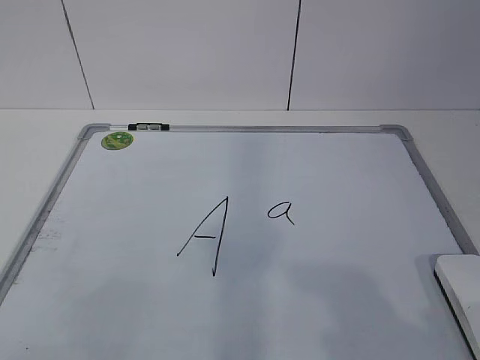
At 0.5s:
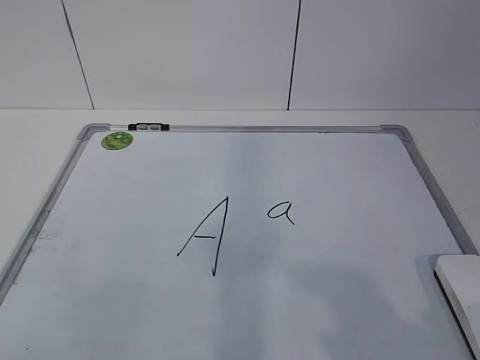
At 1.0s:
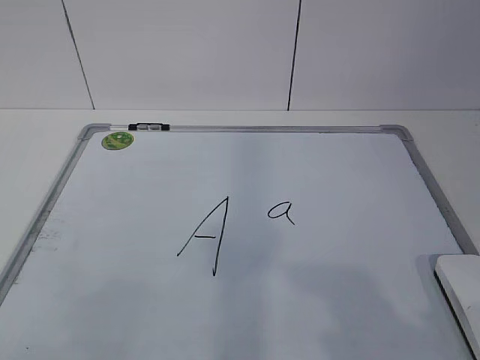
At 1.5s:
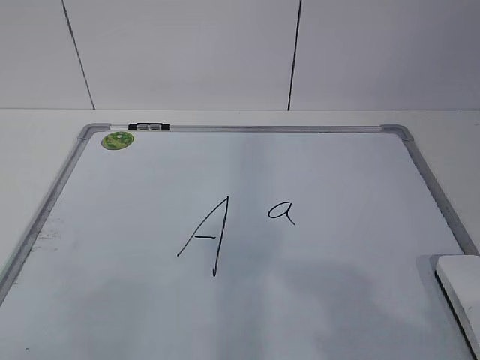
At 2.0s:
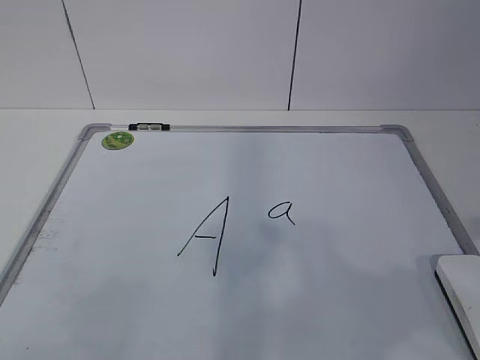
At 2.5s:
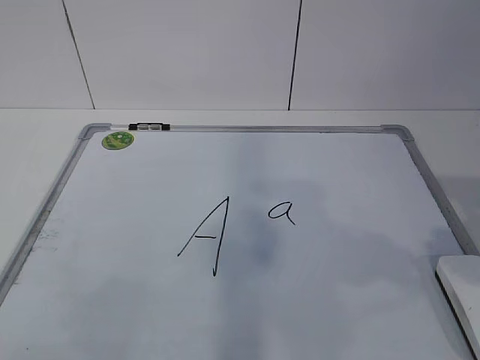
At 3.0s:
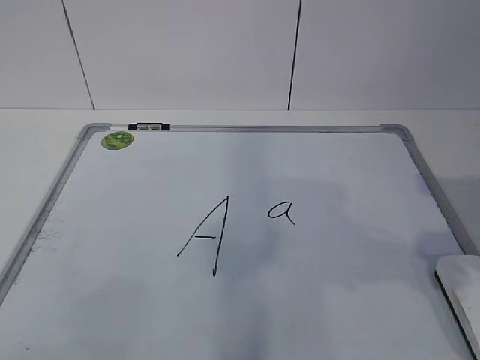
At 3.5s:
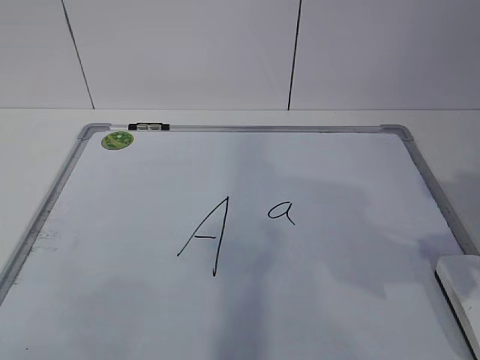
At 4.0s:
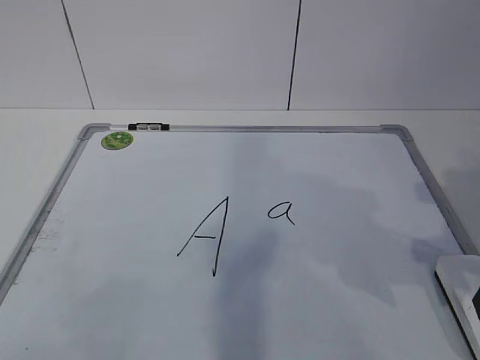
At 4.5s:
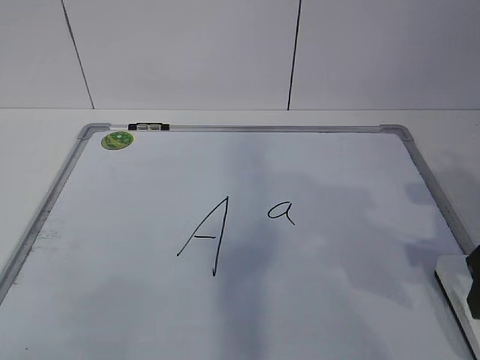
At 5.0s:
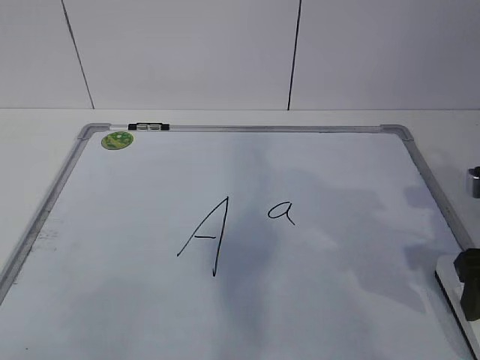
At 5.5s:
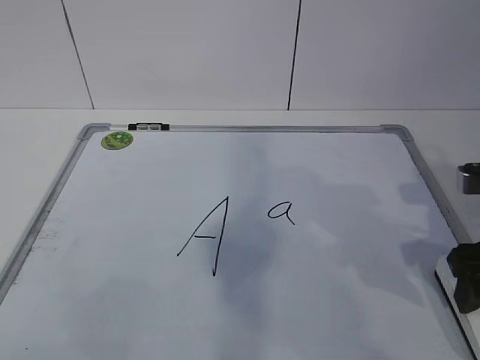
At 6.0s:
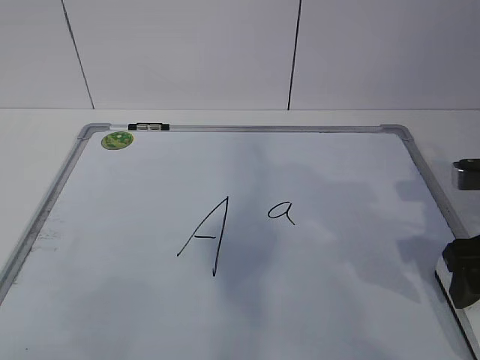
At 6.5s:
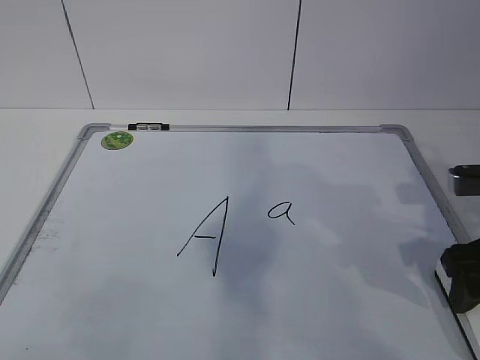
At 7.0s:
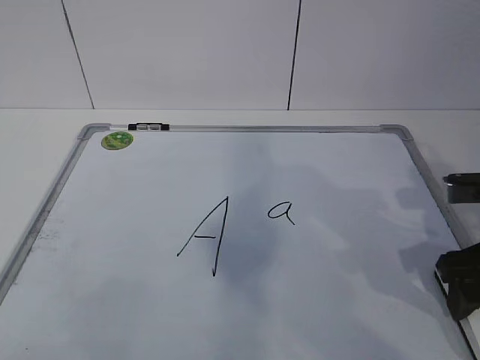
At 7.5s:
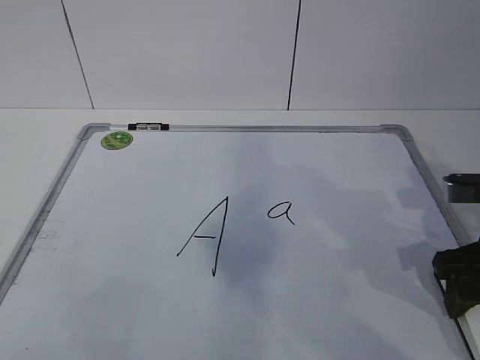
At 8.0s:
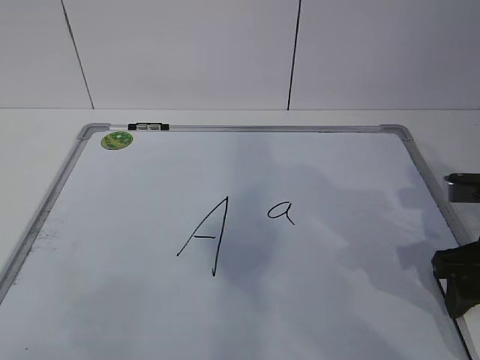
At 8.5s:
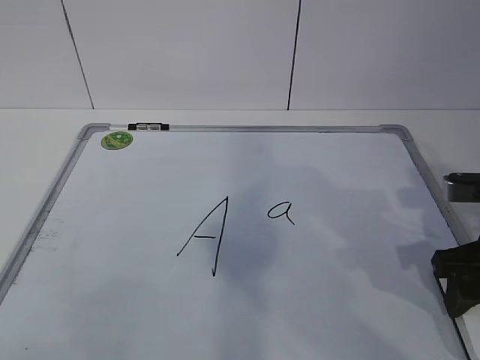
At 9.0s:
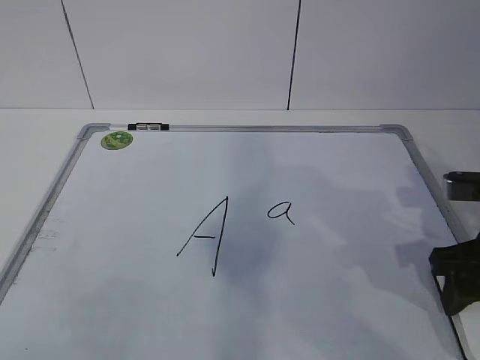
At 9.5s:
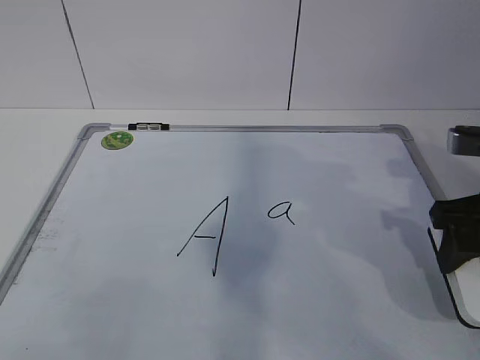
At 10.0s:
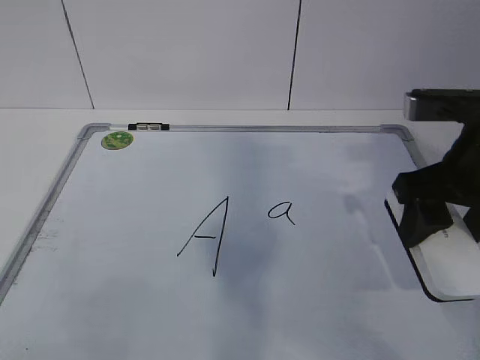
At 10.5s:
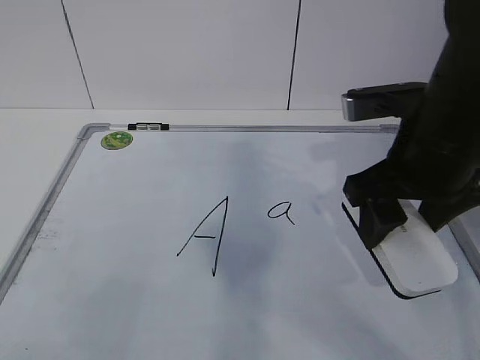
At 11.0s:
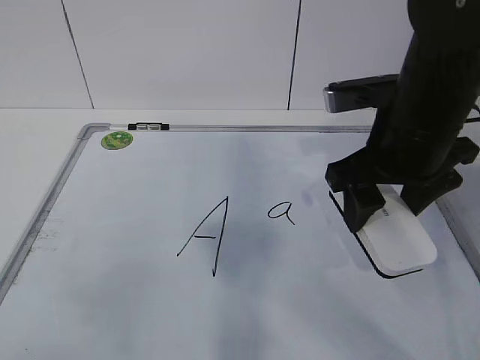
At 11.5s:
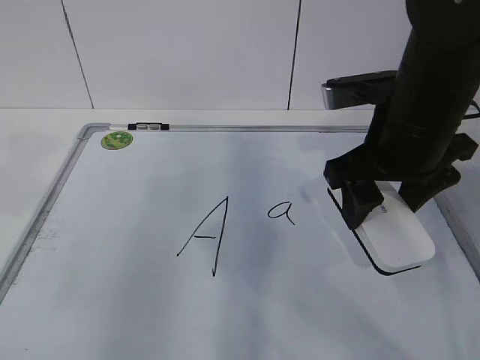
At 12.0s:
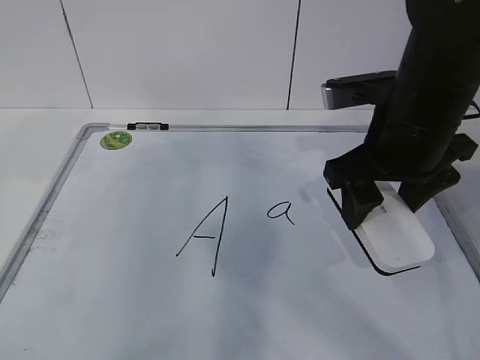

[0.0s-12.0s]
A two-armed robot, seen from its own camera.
Task of the whole recording: pick up the eraser on the blackboard and erase the letter "a".
2.0s to 4.0s: The right gripper goes about 15 cm forward and downward.
4.0s to 6.0s: The right gripper shifts by roughly 5 cm.
6.0s to 8.0s: The grippers stay close to where they were, moving slightly.
8.0s to 10.0s: The right gripper goes roughly 10 cm upward.
10.0s to 12.0s: The left gripper heads forward, covering approximately 30 cm. The right gripper moves to the left, some 5 cm.

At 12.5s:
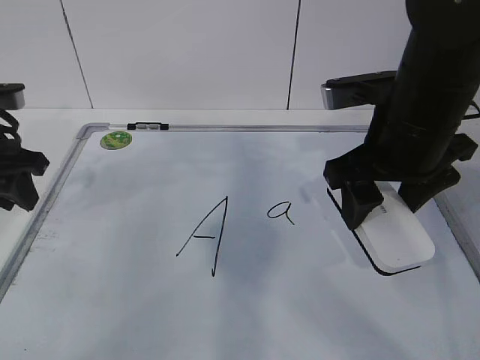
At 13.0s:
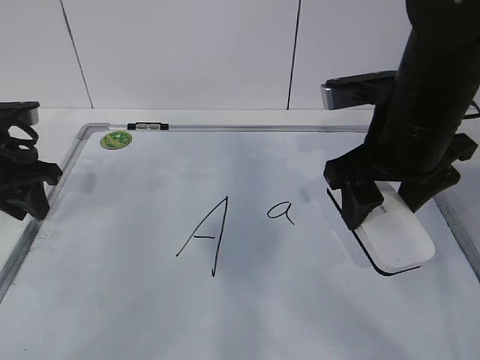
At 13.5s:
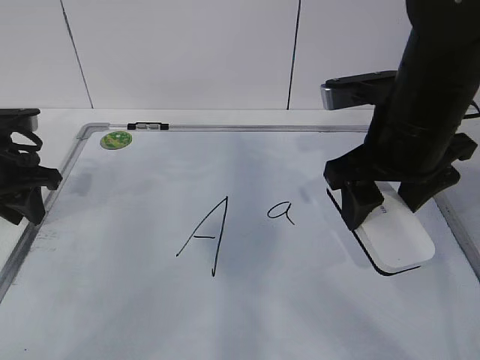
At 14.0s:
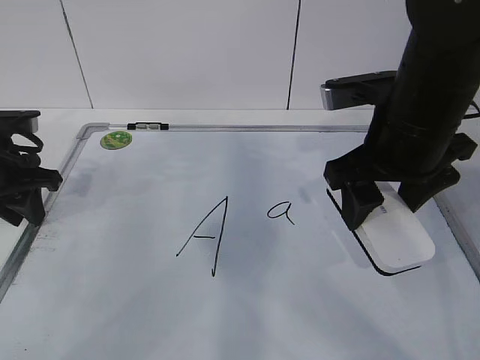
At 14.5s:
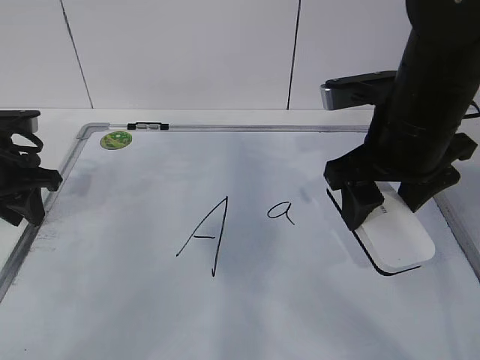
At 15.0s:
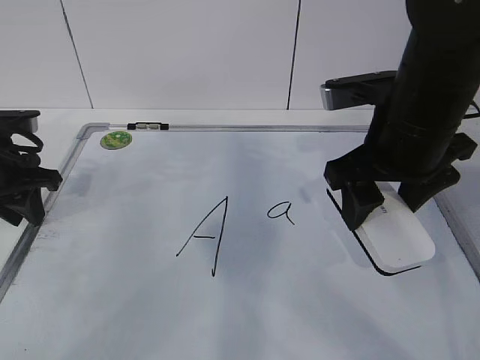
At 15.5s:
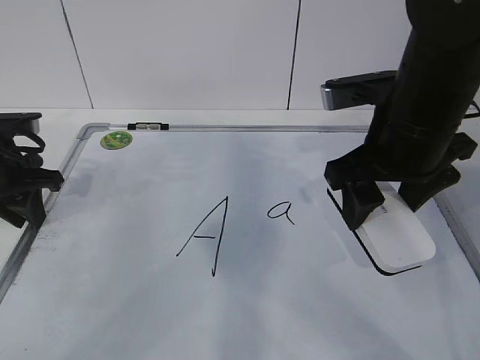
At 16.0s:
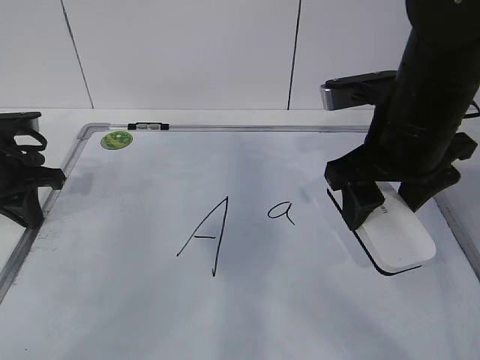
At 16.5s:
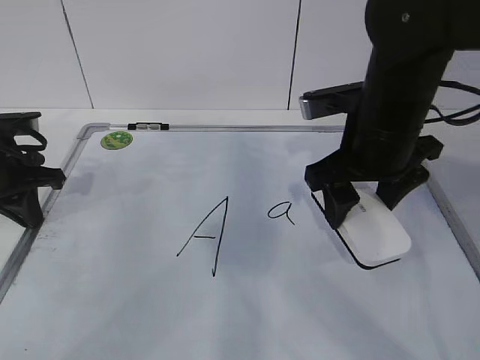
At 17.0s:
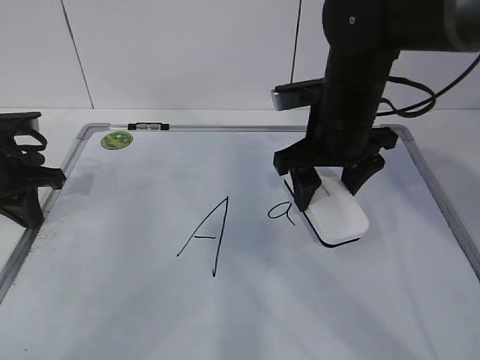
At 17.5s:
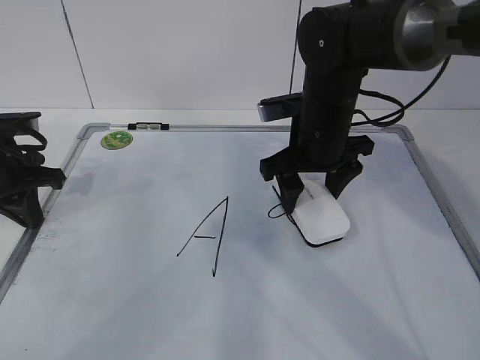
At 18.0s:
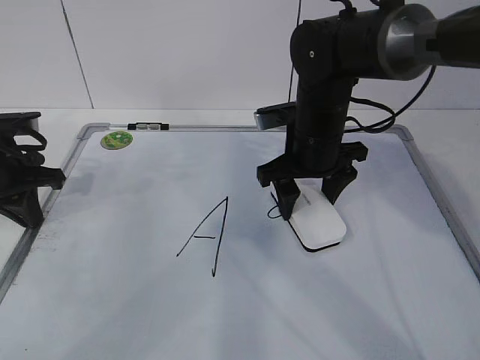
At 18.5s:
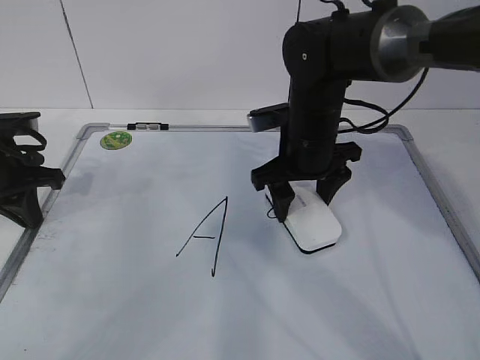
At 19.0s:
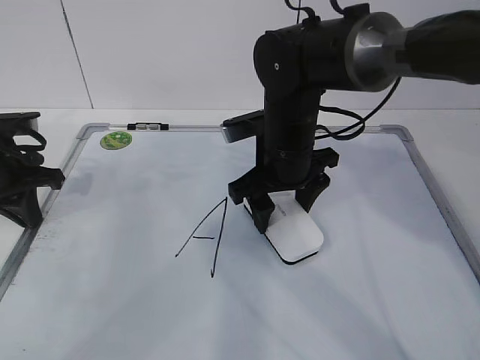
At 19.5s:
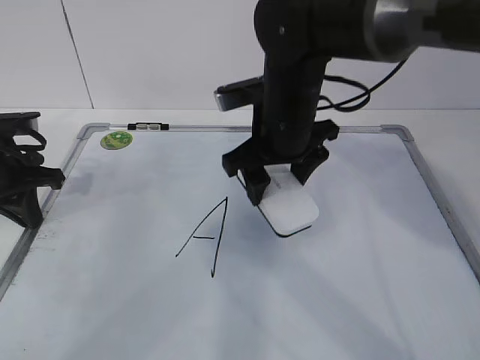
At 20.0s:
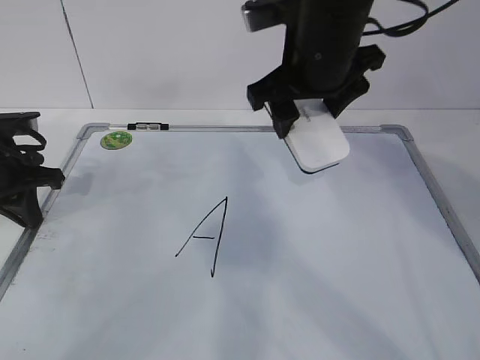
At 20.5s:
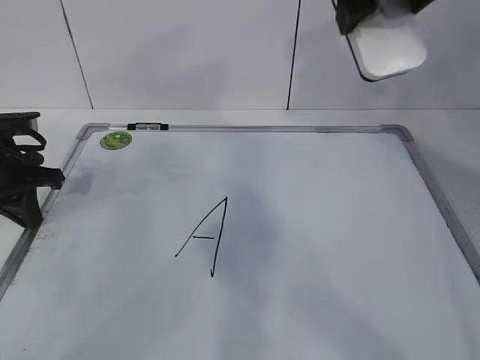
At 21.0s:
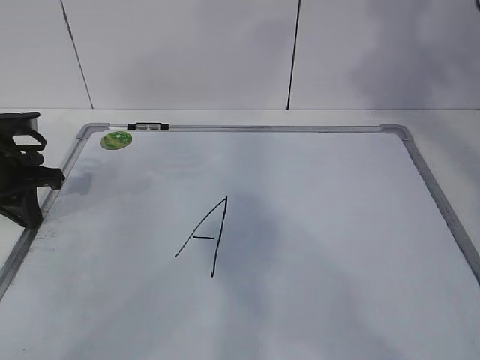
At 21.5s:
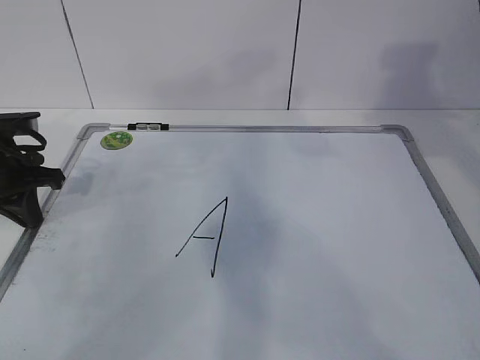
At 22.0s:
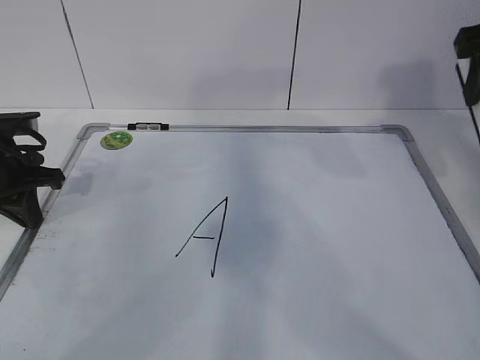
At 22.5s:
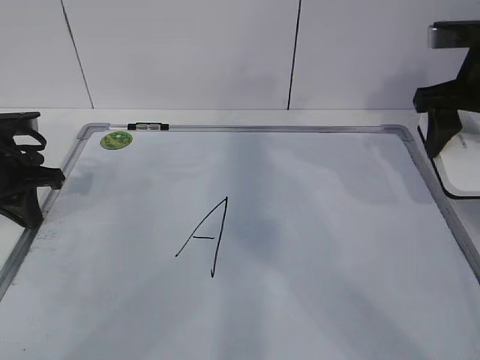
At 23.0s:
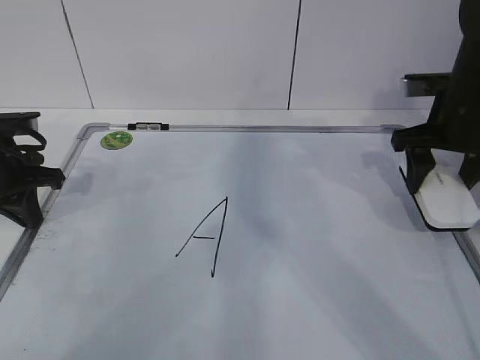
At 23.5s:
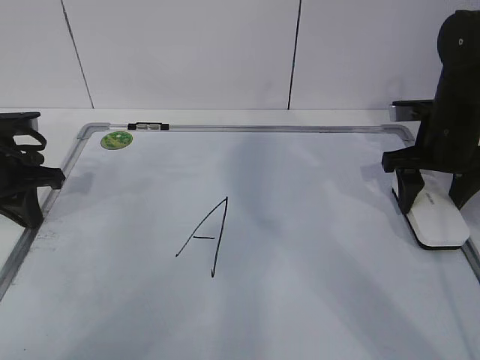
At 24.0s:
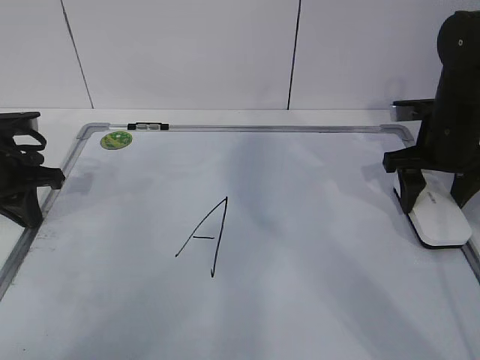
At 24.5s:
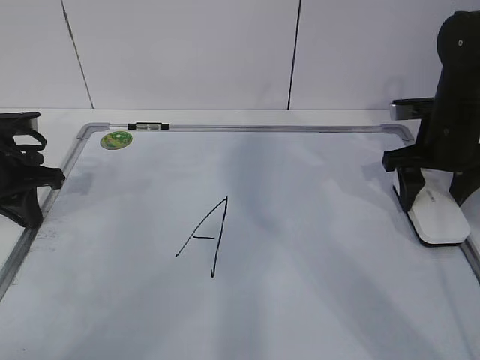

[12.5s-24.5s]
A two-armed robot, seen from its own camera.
Task of the whole recording: pick up the eraser on the blackboard and erase the letter "a".
Step, 16.5s to 21.0s: Put down the eraser with your right hand.
12.5s to 14.5s: The grippers move only a little.
14.5s to 16.5s: The left gripper closes up.
16.5s to 18.5s: The right gripper goes about 10 cm forward, downward and to the left.
18.5s to 20.5s: The right gripper moves upward, roughly 25 cm.
20.5s to 22.5s: The right gripper shifts approximately 20 cm downward, to the right and forward.
22.5s to 24.5s: The right gripper heads downward, covering roughly 10 cm.

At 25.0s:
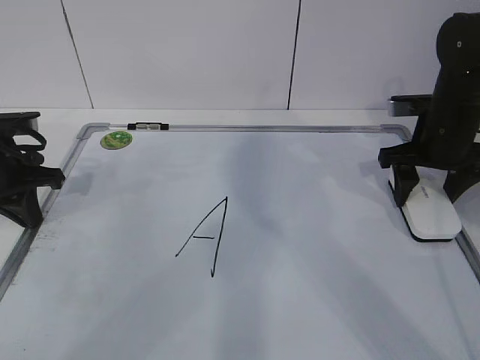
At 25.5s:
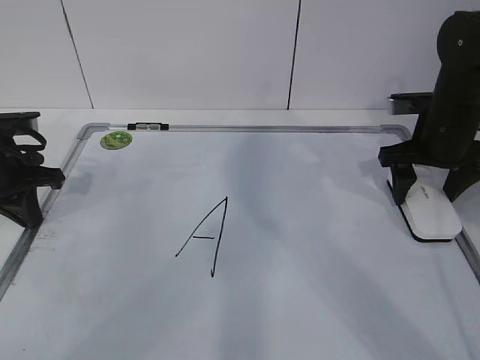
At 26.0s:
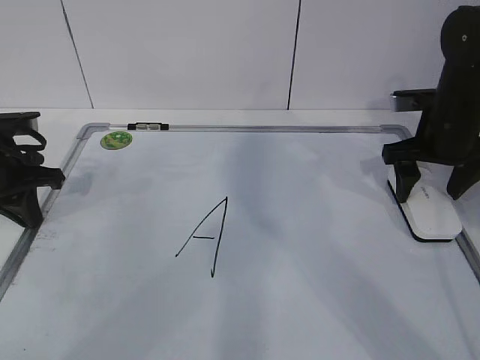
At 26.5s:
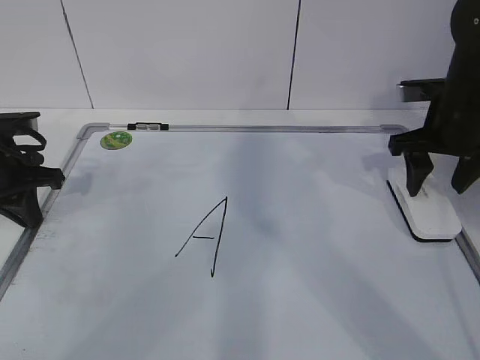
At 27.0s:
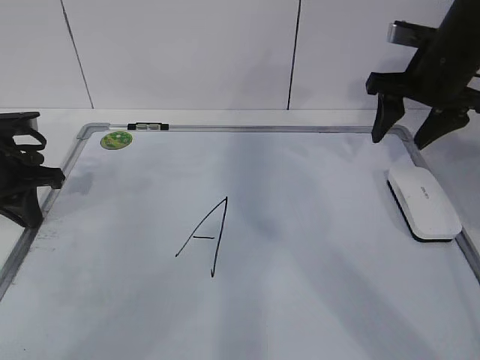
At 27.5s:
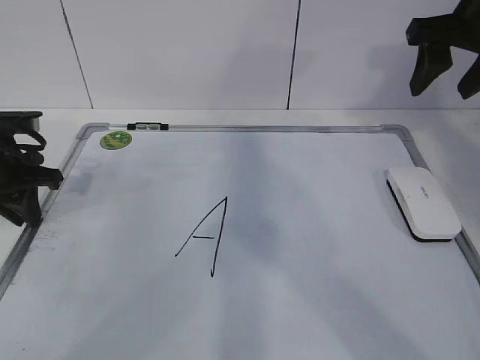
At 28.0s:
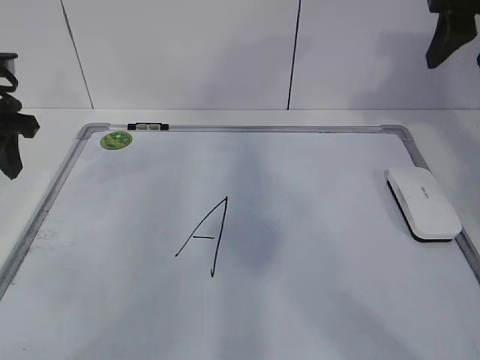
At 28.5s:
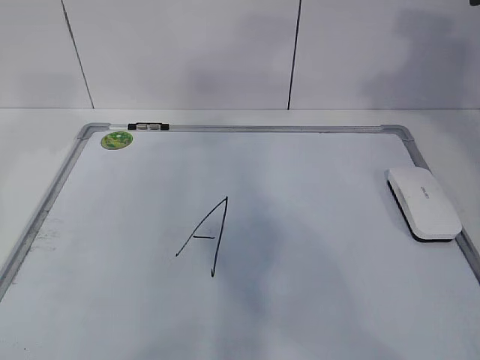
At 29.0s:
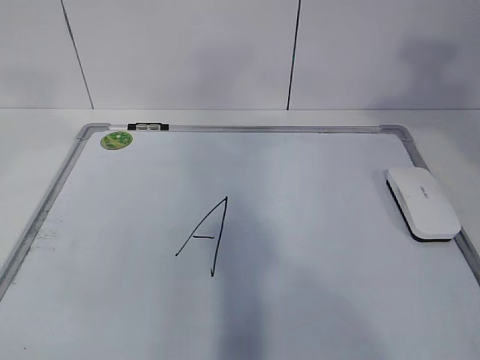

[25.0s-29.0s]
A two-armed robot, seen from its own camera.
Task of the whole recording: pick up the eraser on the blackboard and erase the letter "a".
25.0s to 27.0s: The right gripper is displaced upward by about 10 cm, and opens, then closes again.
27.0s to 29.0s: The left gripper travels upward and backward by roughly 35 cm, and opens its fingers. The right gripper moves backward and upward, approximately 25 cm.
